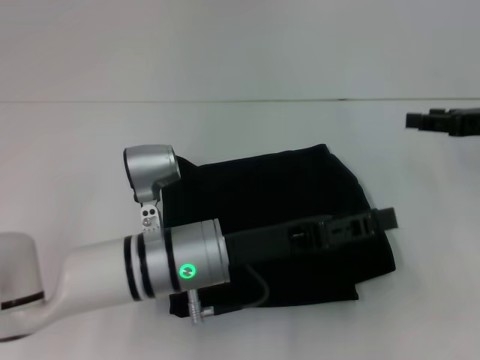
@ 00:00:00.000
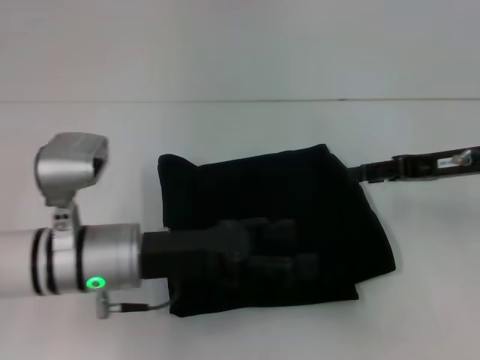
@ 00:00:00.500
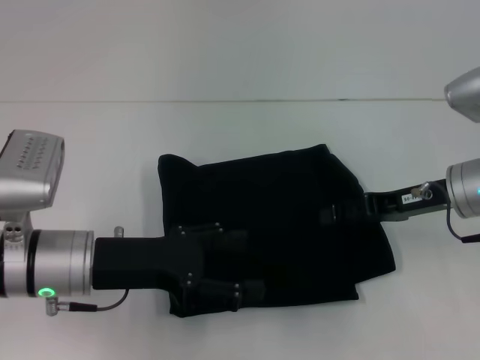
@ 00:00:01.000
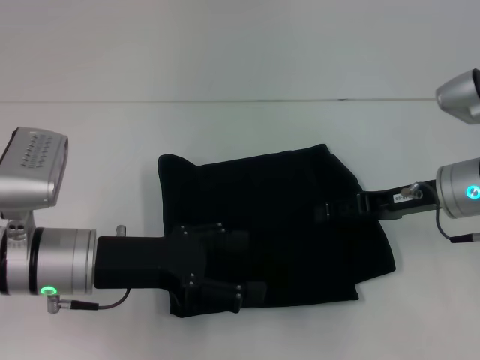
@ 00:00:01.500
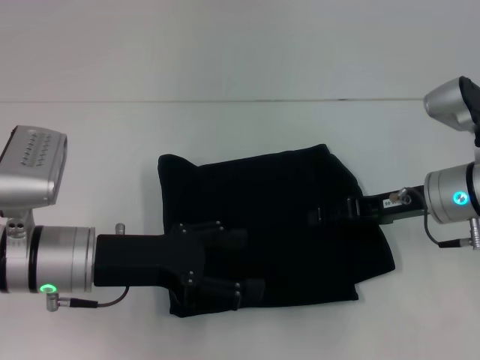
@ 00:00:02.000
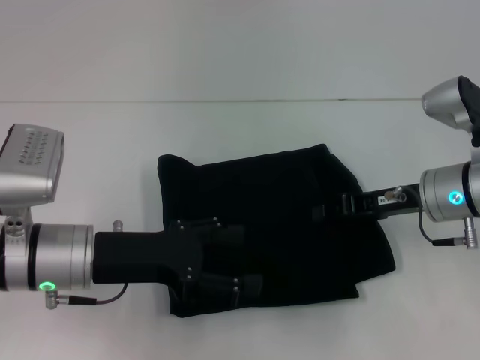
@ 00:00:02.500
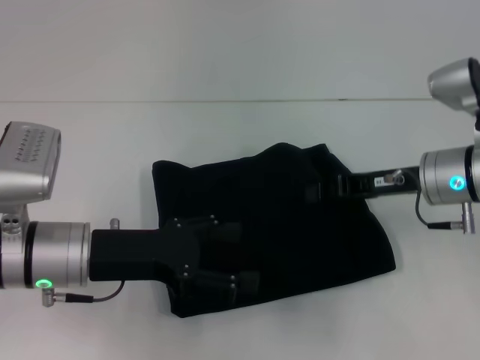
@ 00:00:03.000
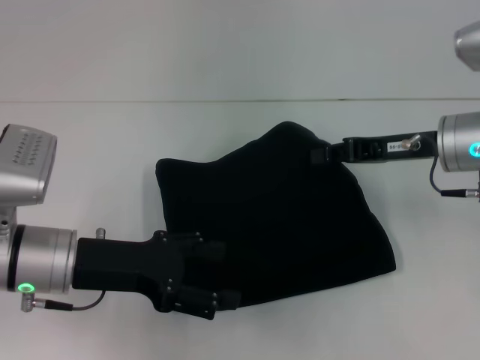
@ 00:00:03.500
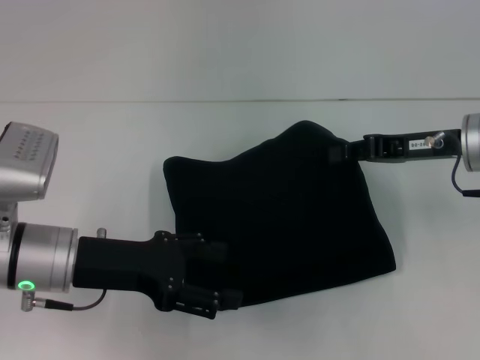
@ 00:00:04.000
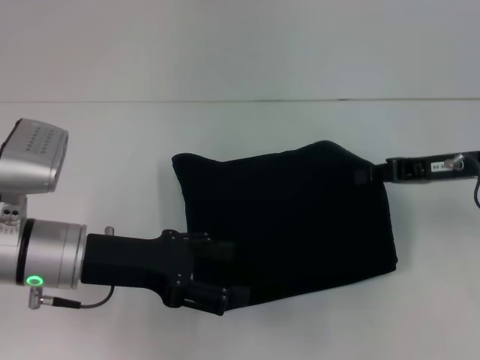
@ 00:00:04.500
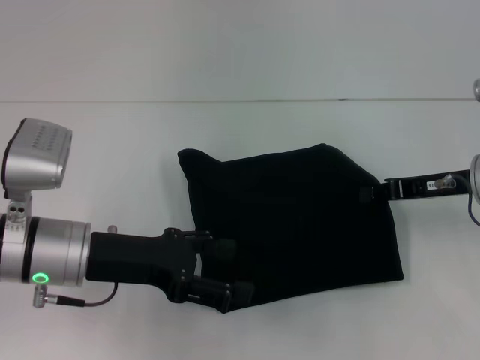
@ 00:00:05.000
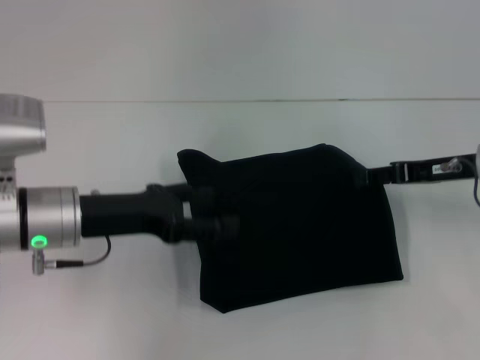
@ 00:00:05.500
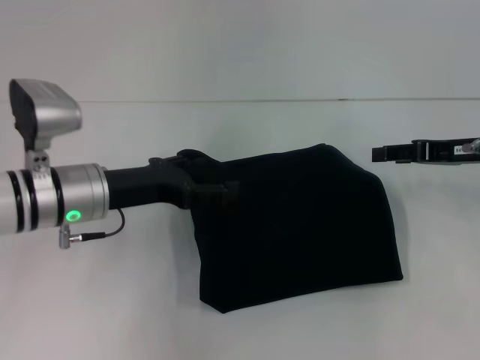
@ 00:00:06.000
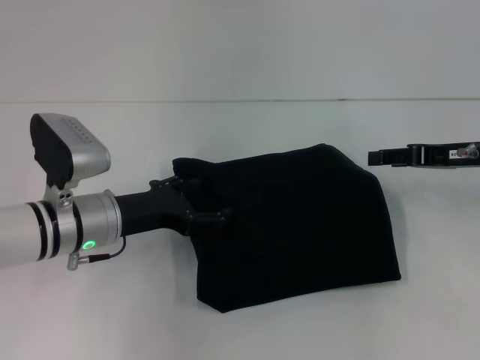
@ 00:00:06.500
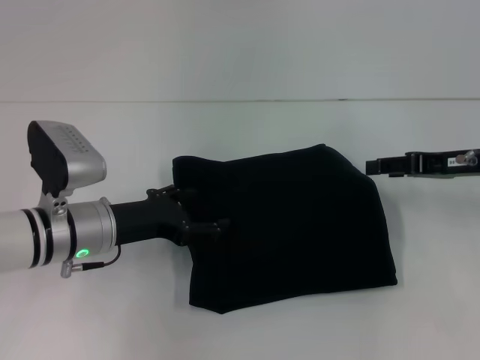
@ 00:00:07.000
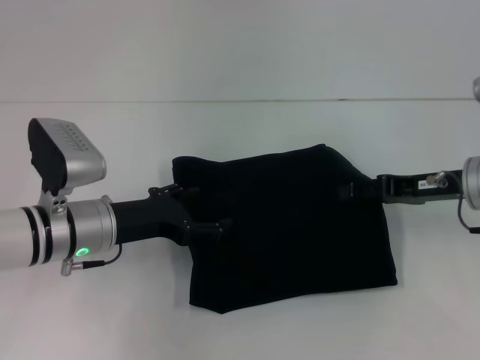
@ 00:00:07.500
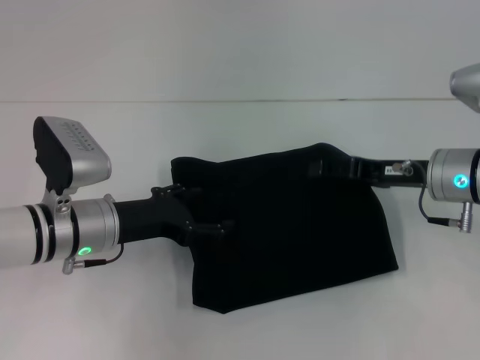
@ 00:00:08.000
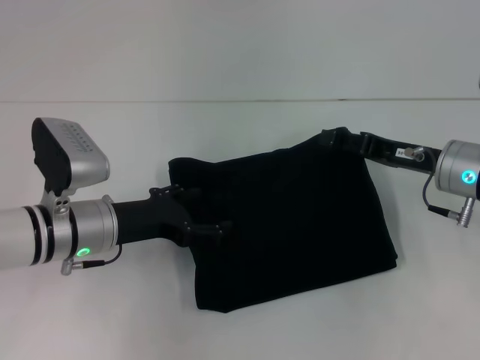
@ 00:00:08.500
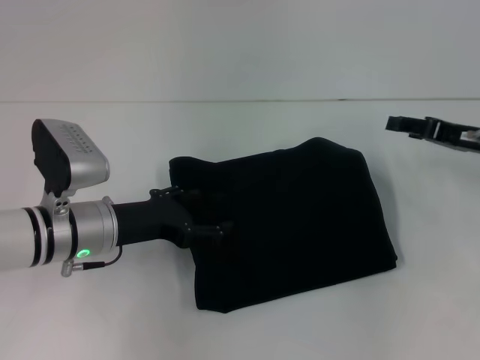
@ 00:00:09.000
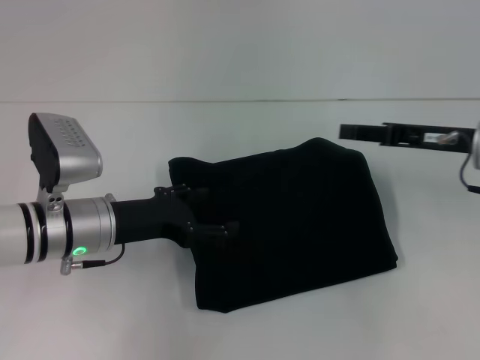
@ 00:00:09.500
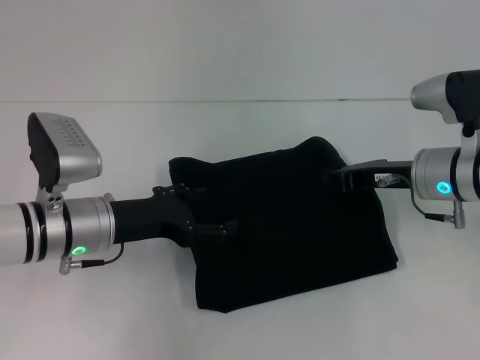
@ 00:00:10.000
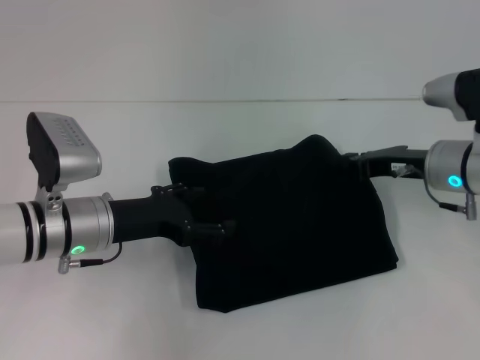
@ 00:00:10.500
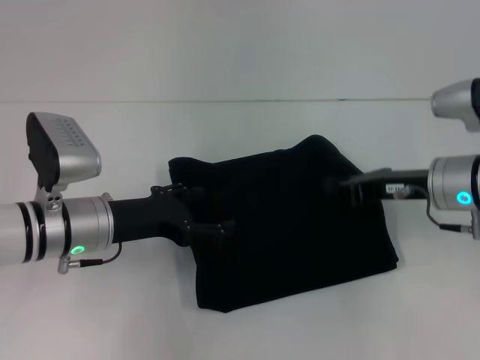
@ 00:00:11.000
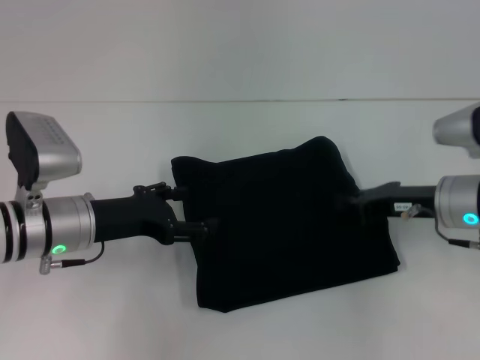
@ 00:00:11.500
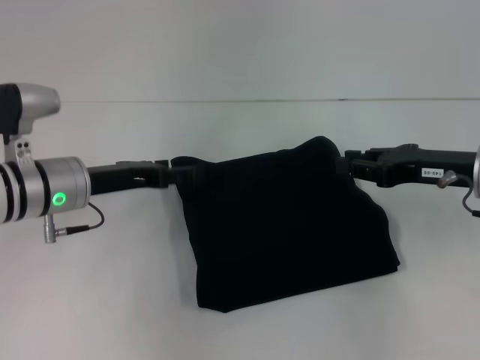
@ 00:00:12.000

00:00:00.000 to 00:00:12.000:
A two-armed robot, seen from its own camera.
00:00:00.000 to 00:00:02.000: The right gripper heads to the left and downward, covering about 10 cm; the left gripper is displaced to the left by approximately 10 cm, and opens up.
00:00:02.000 to 00:00:04.000: The right gripper heads upward, covering approximately 5 cm, and closes its fingers.
00:00:04.000 to 00:00:06.000: The left gripper is displaced forward by about 5 cm. Meanwhile the right gripper opens up.
00:00:06.000 to 00:00:08.000: The right gripper moves to the left, about 5 cm.
00:00:08.000 to 00:00:10.000: The right gripper reaches roughly 5 cm to the right, then returns, and closes up.
00:00:10.000 to 00:00:12.000: The right gripper moves about 5 cm.

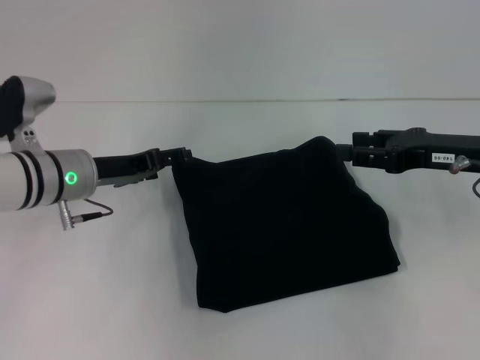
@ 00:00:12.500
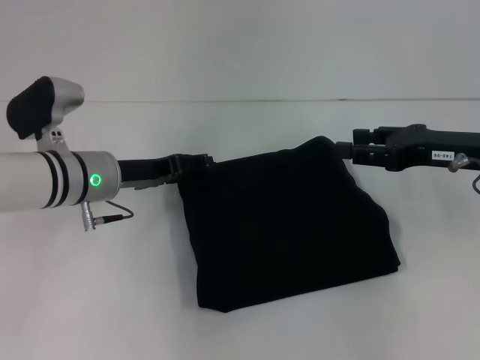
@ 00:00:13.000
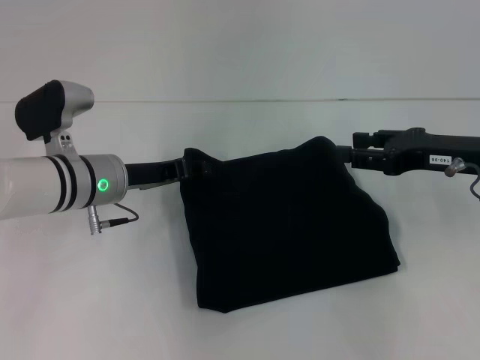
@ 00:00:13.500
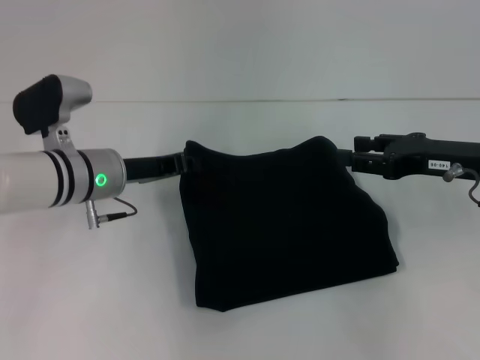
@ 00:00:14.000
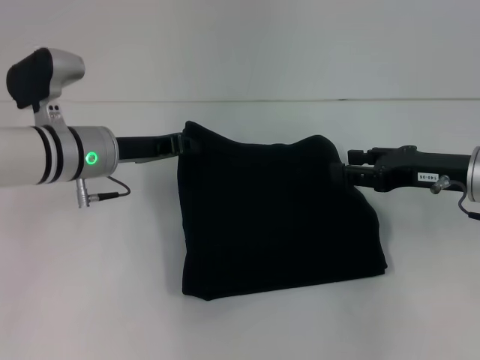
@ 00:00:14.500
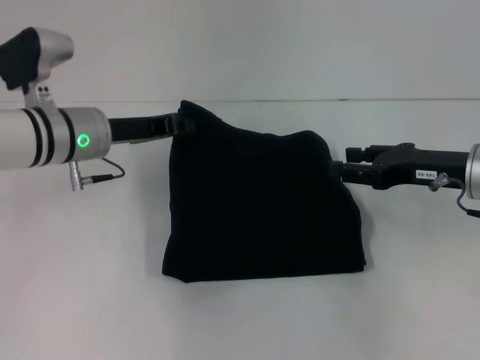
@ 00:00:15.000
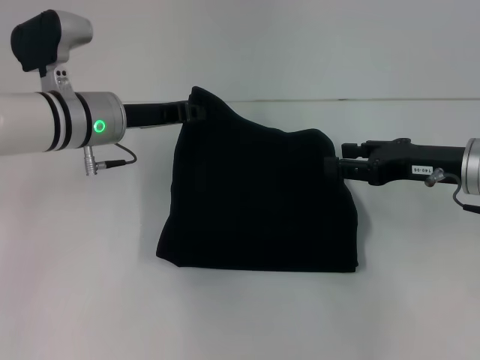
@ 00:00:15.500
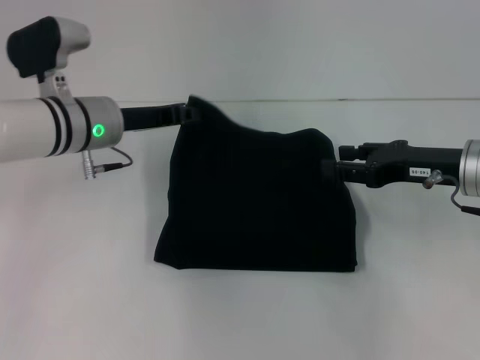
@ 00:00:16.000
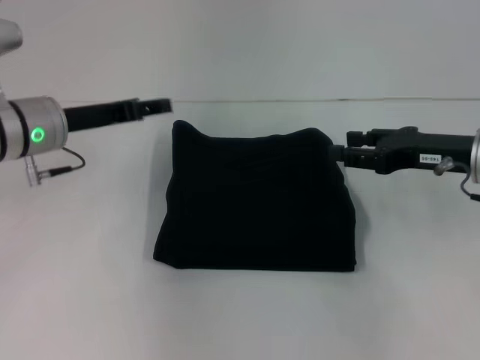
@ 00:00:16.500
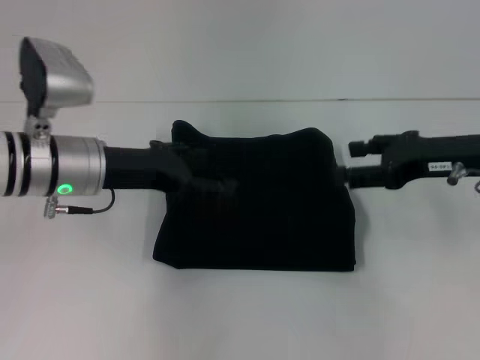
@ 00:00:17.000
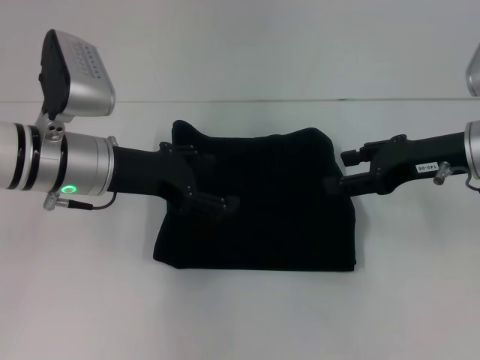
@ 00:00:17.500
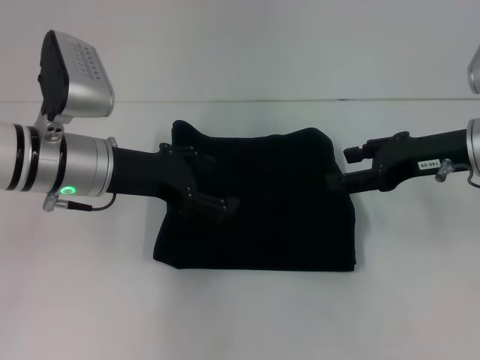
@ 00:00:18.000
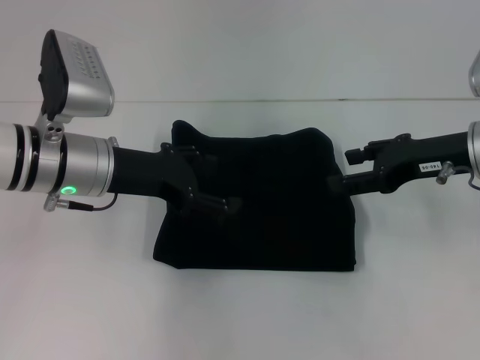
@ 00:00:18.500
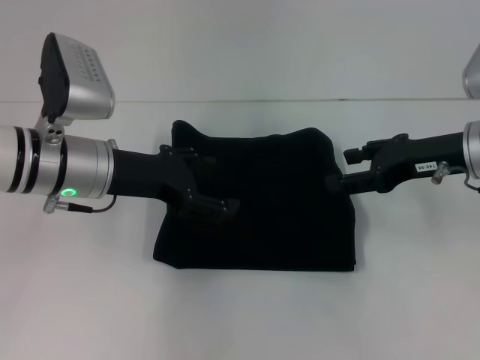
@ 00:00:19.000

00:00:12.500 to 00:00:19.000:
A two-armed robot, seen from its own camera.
00:00:12.500 to 00:00:14.500: The left gripper closes.
00:00:14.500 to 00:00:17.000: The left gripper opens.
00:00:17.000 to 00:00:19.000: There are only small adjustments of the grippers.
